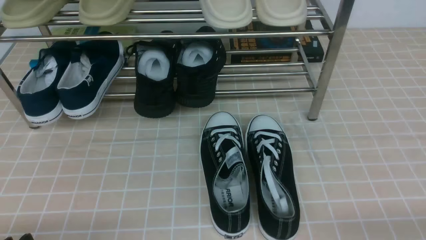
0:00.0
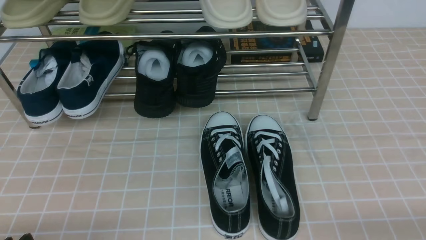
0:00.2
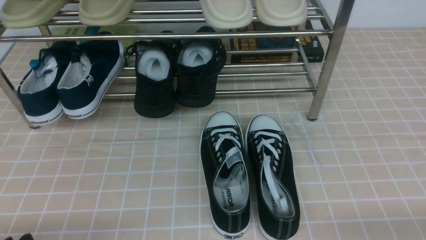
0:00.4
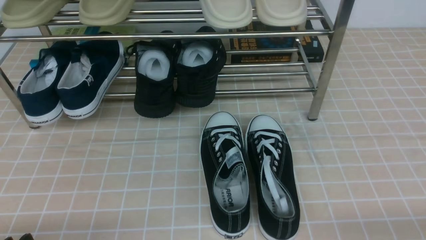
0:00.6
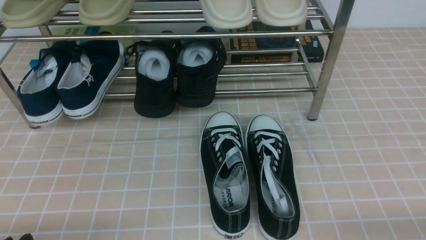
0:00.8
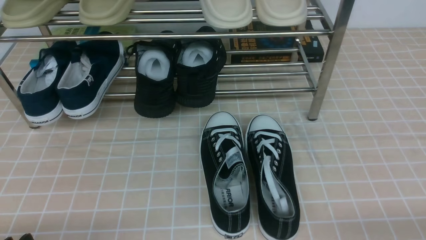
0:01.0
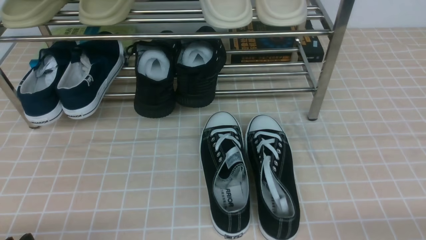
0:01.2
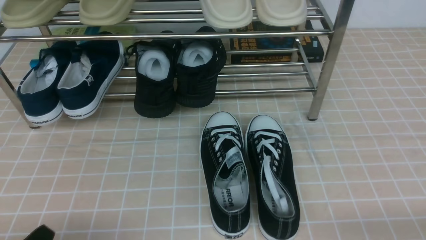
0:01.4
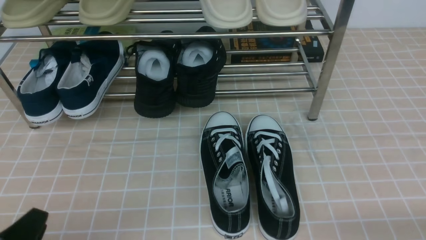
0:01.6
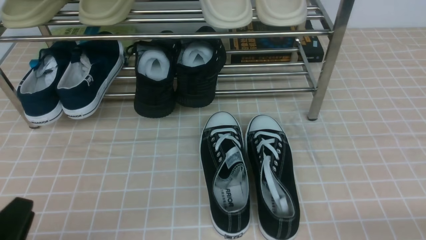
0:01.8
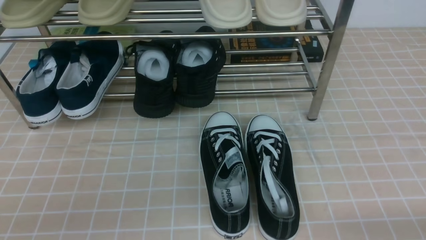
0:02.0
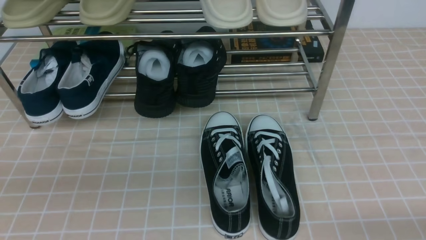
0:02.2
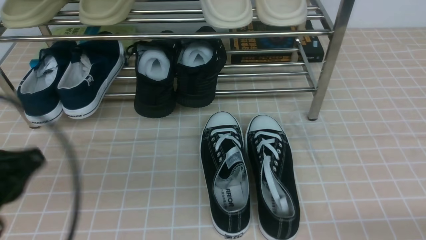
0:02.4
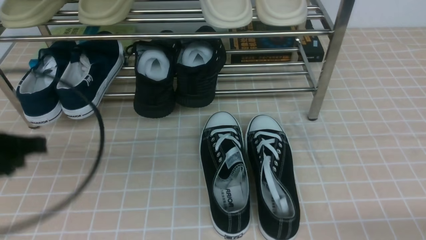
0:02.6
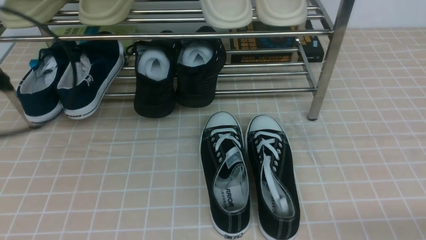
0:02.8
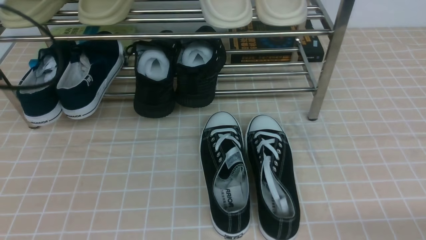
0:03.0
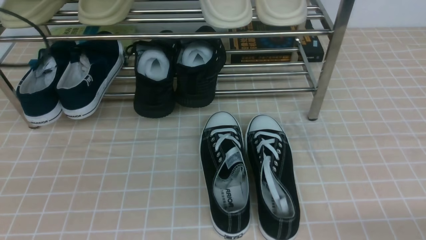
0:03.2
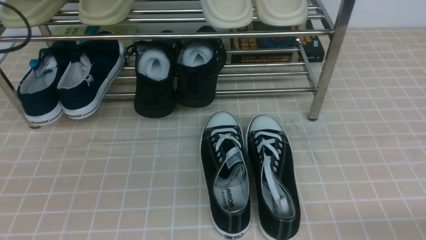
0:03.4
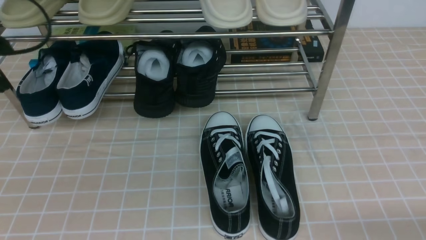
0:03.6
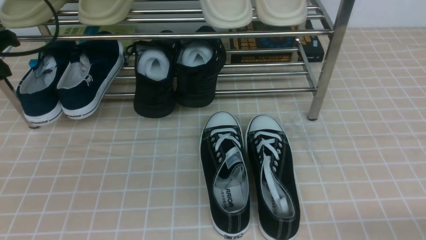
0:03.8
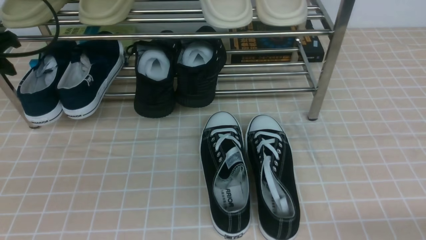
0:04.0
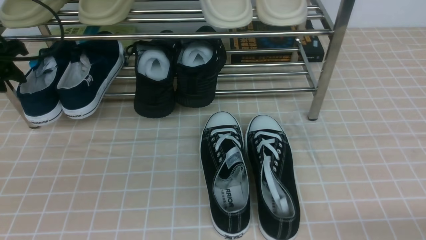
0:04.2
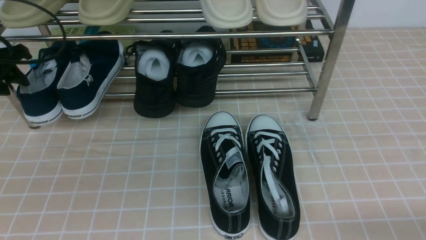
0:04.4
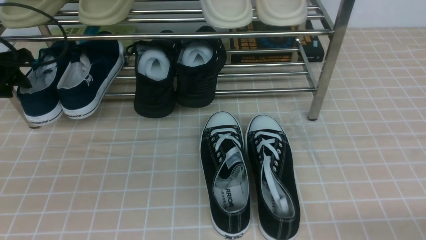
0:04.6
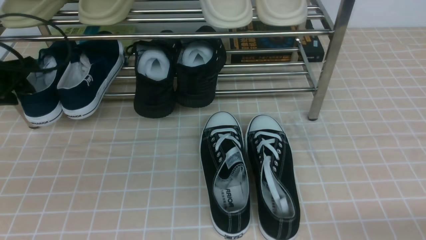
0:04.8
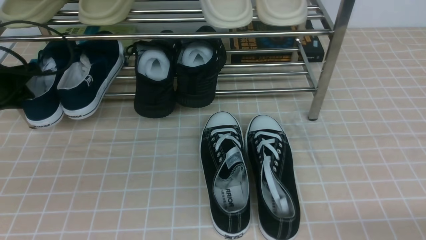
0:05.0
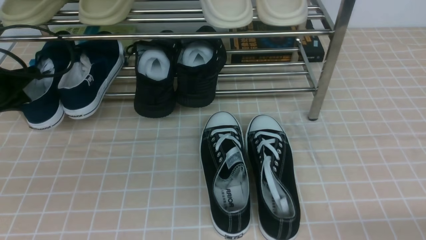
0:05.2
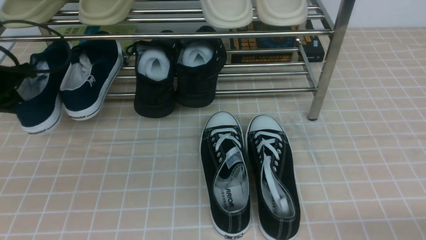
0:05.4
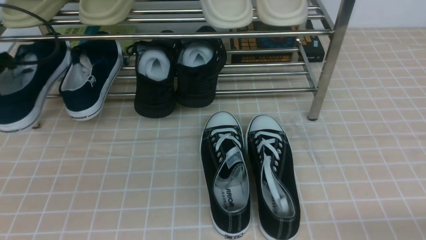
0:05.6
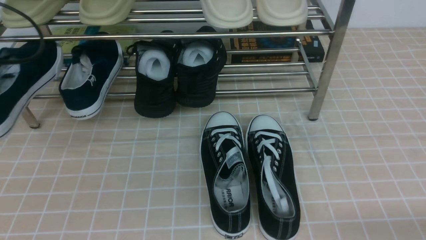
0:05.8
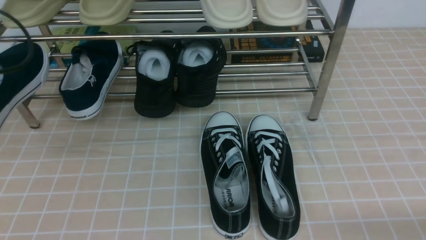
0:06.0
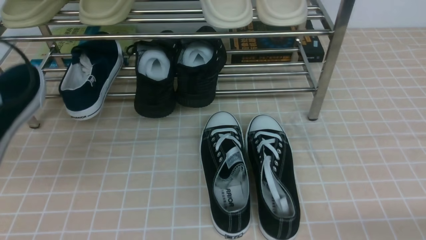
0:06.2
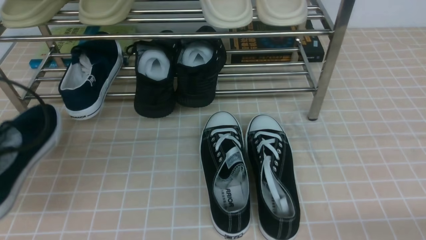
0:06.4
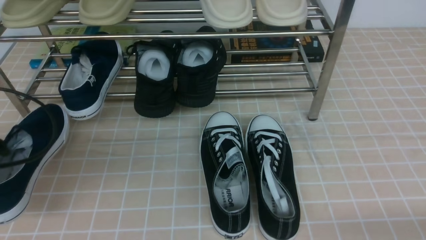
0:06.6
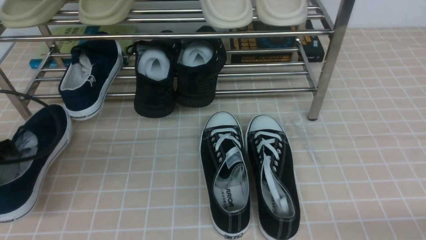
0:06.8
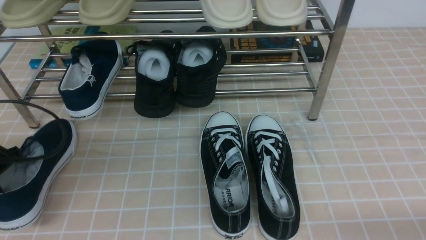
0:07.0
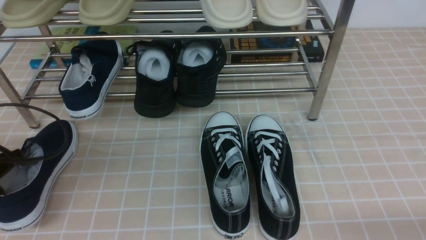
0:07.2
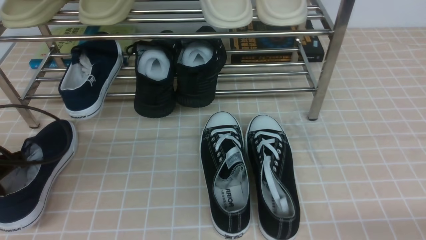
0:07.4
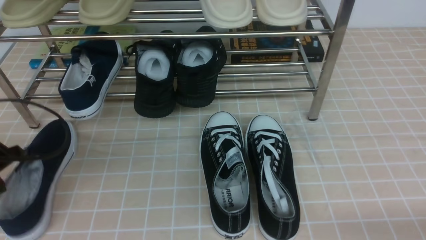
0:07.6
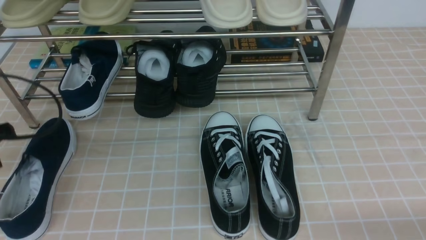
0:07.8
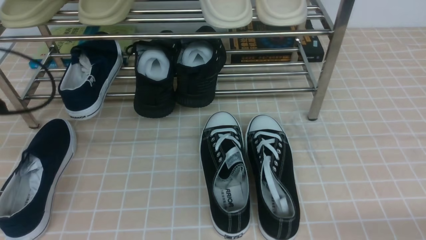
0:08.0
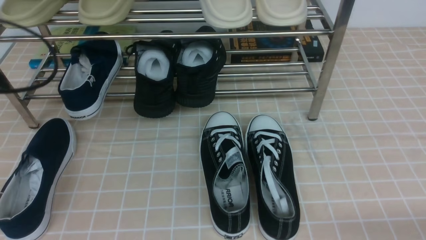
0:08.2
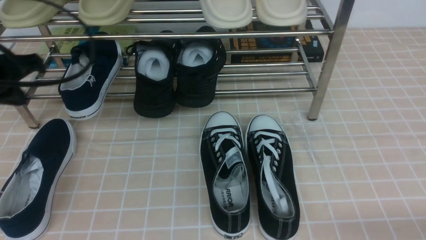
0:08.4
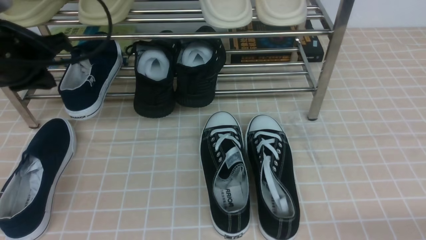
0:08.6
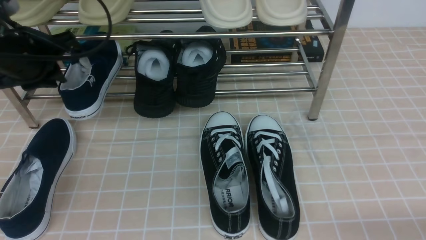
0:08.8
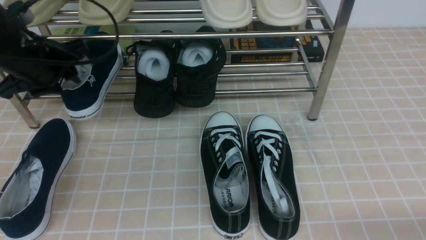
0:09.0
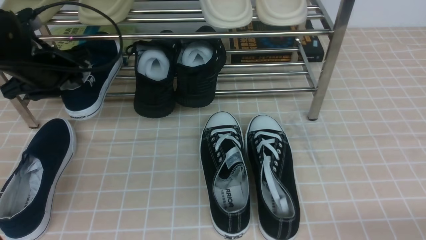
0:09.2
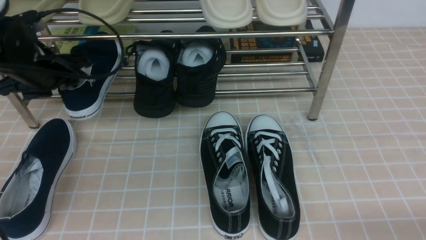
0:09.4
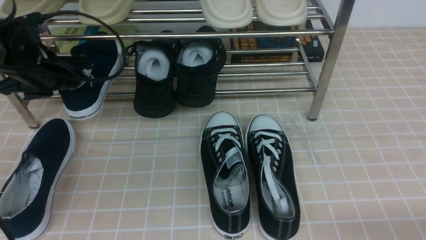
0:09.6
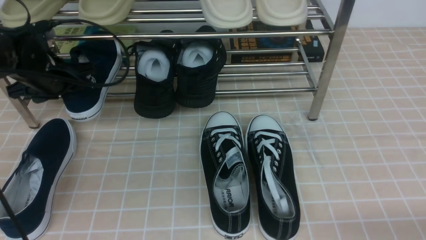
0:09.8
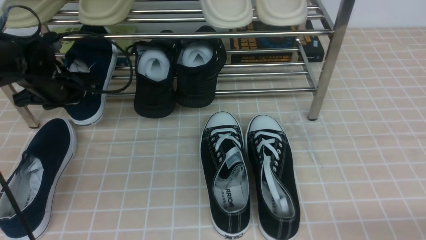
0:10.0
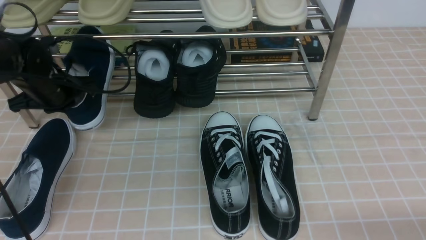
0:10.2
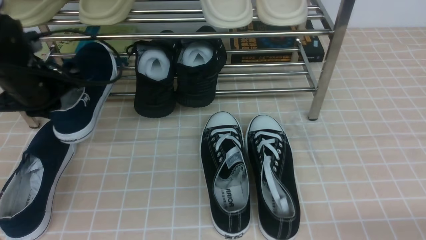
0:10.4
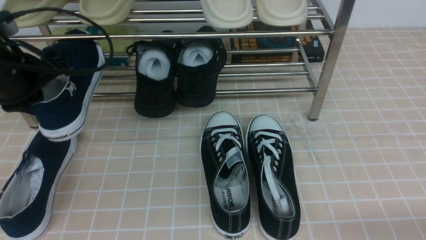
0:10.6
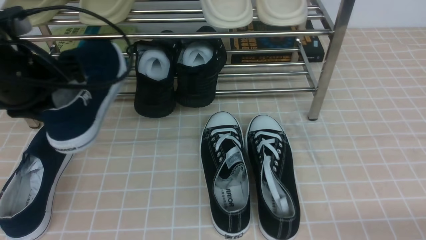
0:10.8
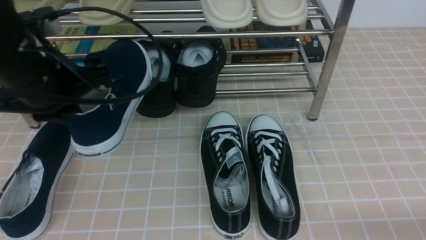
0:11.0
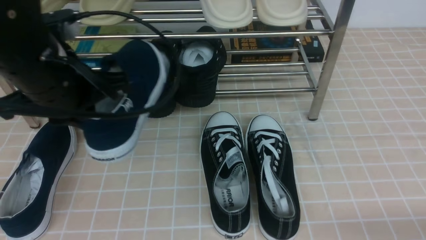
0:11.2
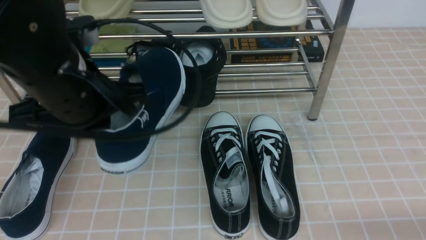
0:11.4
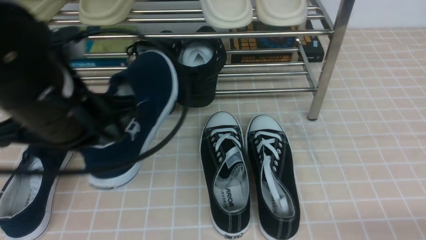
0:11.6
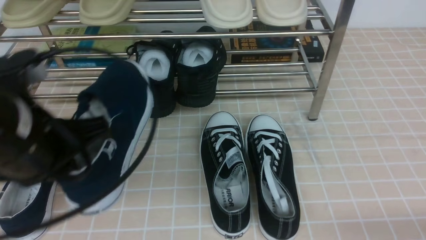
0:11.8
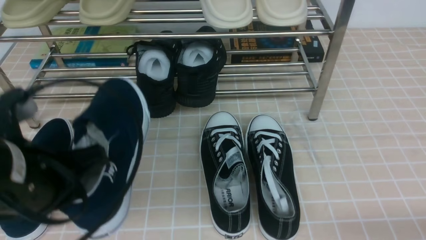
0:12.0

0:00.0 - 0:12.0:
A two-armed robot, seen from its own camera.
Step, 0:00.0 - 0:05.0: use the left arm to clamp a shoe on the left side of the shoe rack.
Step, 0:05.2 - 0:07.6: Use your left arm to remove the clamped shoe from the shoe rack and put it down.
Step, 0:07.8 - 0:09.8: use the left arm to clamp a shoe on the left side of the shoe rack.
0:01.6 - 0:03.0: The left gripper travels forward and upward by roughly 30 cm, and closes up.
0:03.0 - 0:04.4: The left gripper travels forward and downward by roughly 10 cm, and opens up.
0:04.4 - 0:06.0: The left gripper travels backward and upward by about 15 cm, and closes up.
0:06.0 - 0:07.6: The left gripper goes about 10 cm downward, and opens.
0:07.6 - 0:09.0: The left gripper moves forward, to the right and upward, roughly 15 cm, and closes, then reopens.
0:09.0 - 0:10.4: The left gripper closes up.
0:10.4 - 0:12.0: The left gripper travels backward and to the right by approximately 20 cm.

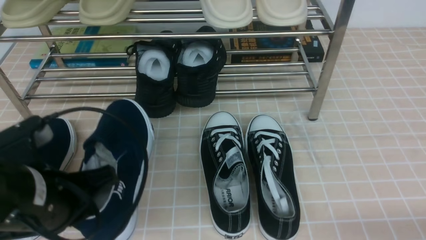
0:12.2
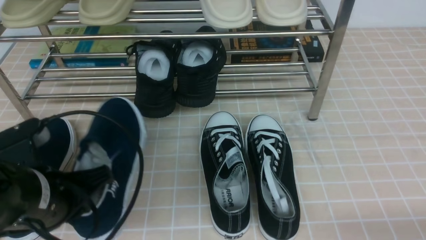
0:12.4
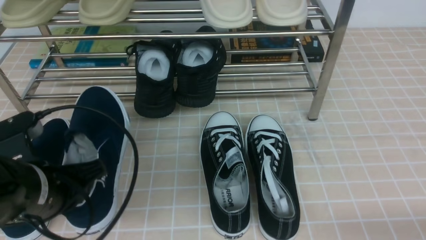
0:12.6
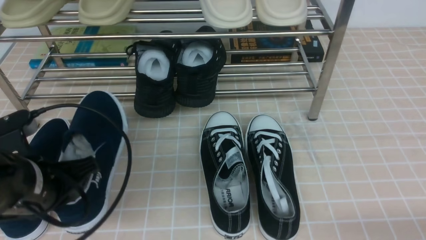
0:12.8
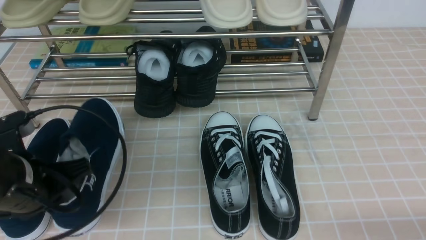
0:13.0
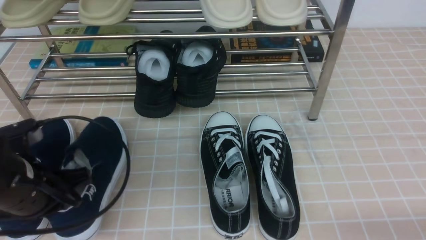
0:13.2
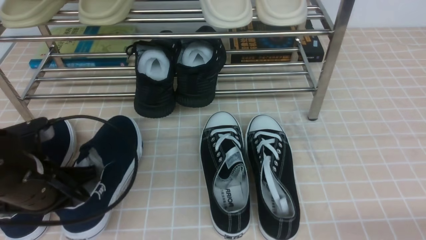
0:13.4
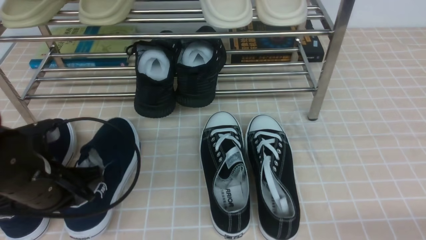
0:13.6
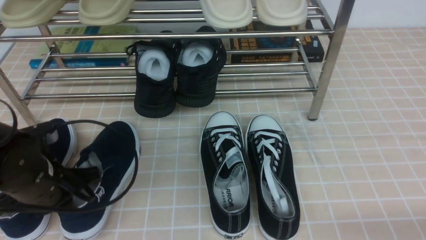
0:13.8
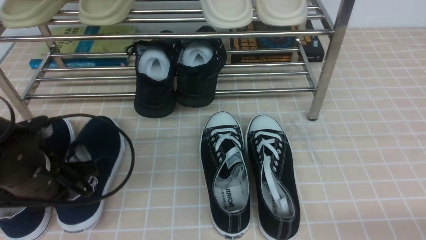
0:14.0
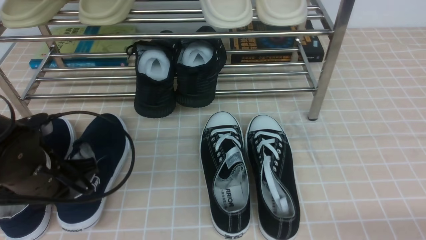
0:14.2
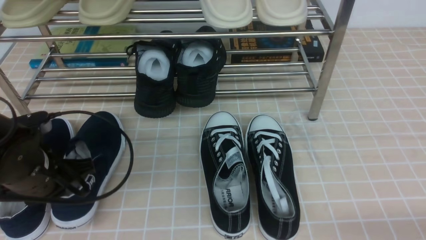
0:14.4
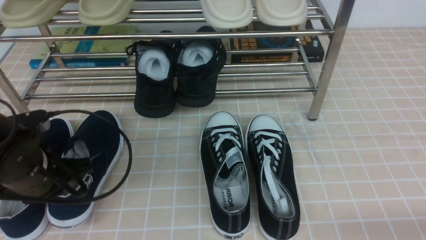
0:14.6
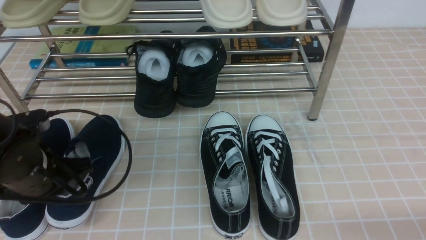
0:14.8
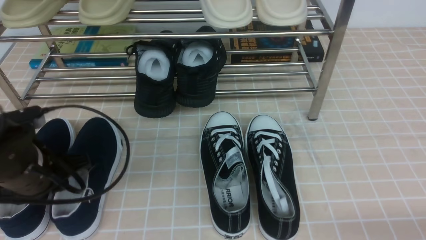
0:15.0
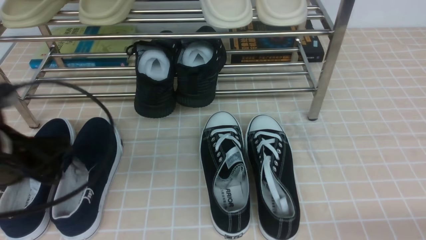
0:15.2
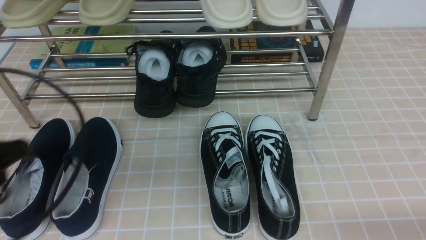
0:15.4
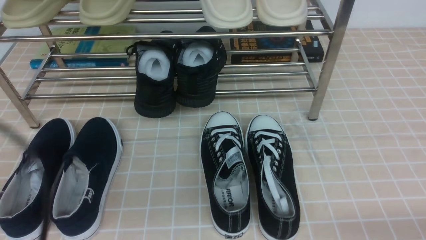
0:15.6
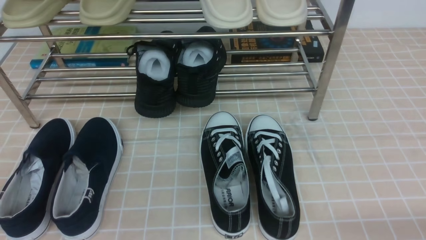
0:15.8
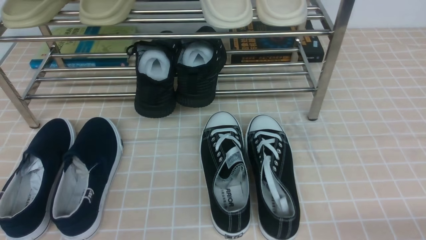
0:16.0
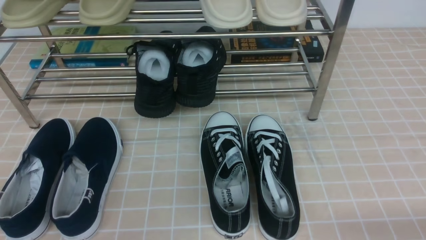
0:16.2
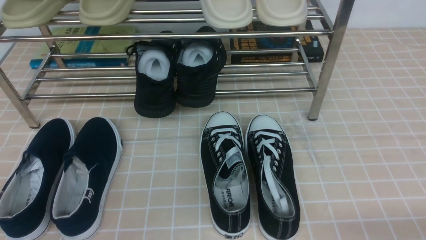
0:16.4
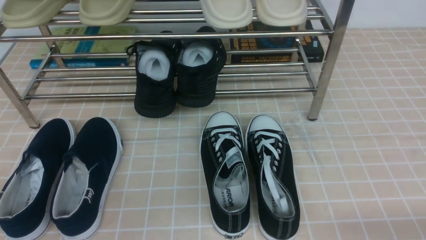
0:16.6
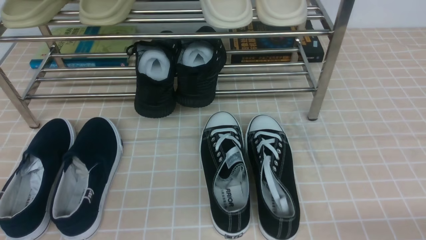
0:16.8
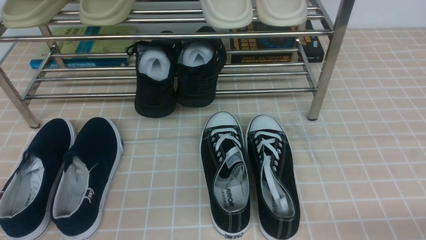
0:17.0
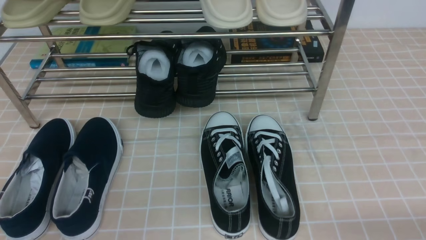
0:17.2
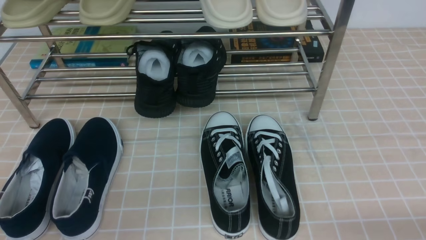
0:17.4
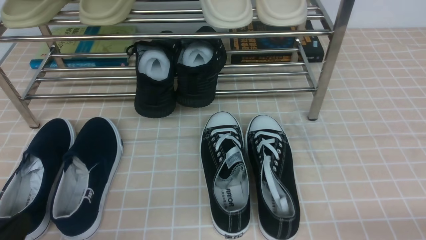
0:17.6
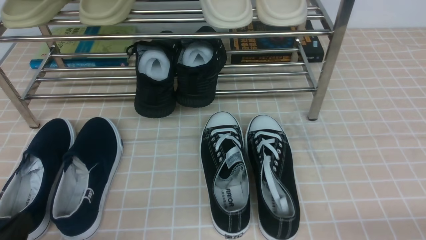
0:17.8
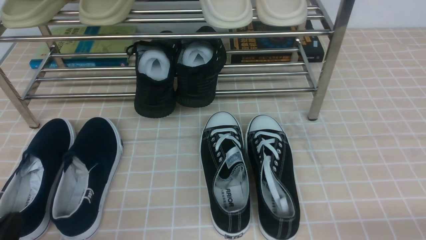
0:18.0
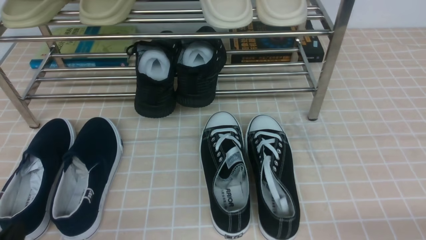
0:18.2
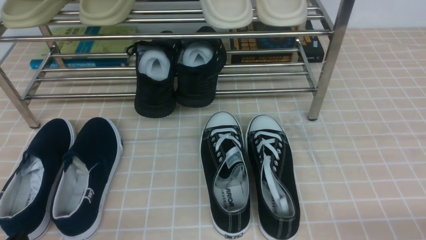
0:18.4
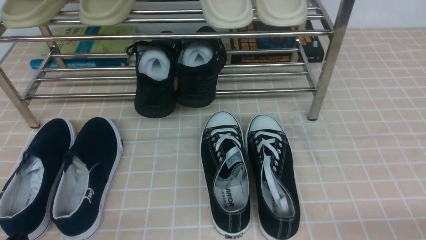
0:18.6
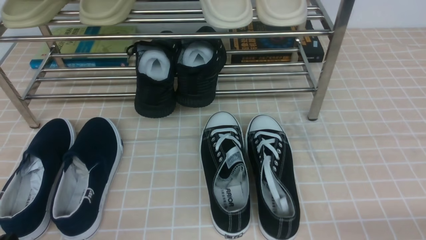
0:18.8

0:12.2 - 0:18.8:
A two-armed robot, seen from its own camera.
Step, 0:12.2 - 0:15.2: Use your left arm to remove the clamped shoe from the shoe rack and put it down.
0:12.2 - 0:13.8: The left gripper shifts approximately 10 cm downward and forward.
0:13.8 - 0:15.4: The left gripper goes about 15 cm upward and backward, and opens up.
0:15.4 - 0:17.2: The left gripper goes approximately 10 cm backward and downward, and closes.
